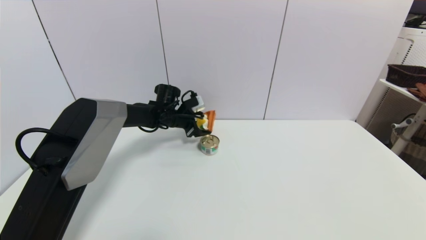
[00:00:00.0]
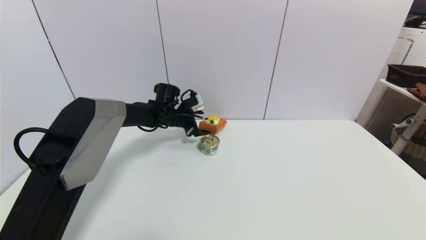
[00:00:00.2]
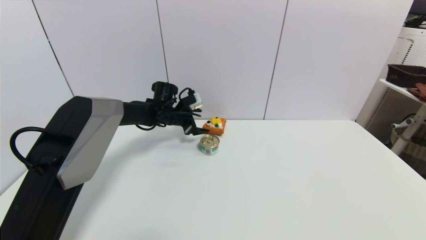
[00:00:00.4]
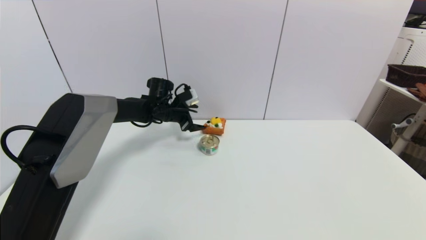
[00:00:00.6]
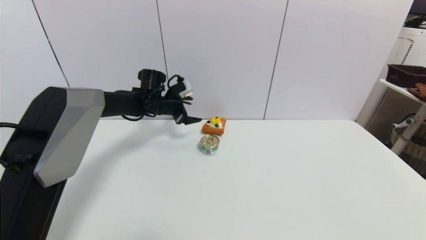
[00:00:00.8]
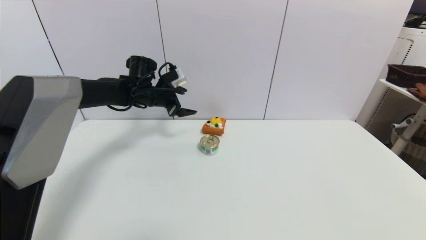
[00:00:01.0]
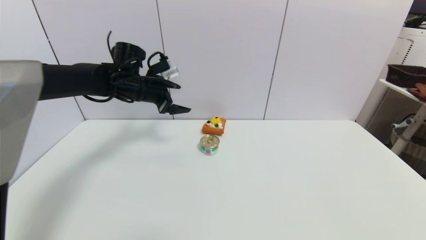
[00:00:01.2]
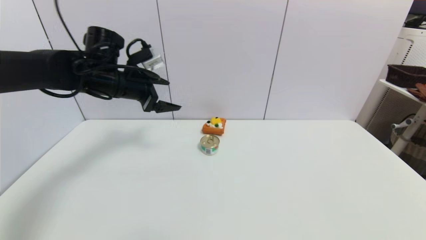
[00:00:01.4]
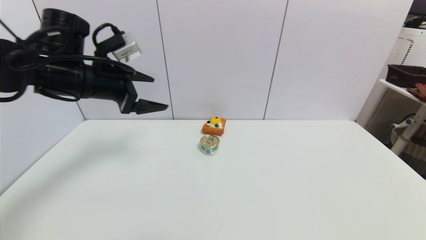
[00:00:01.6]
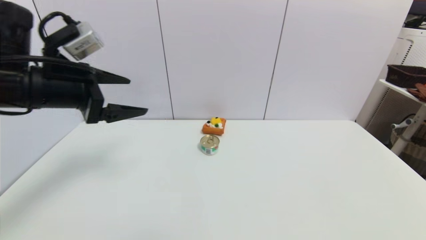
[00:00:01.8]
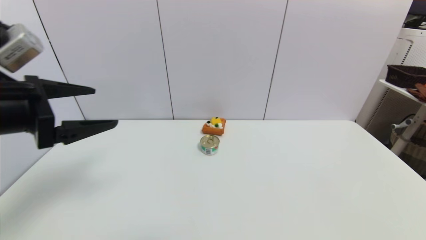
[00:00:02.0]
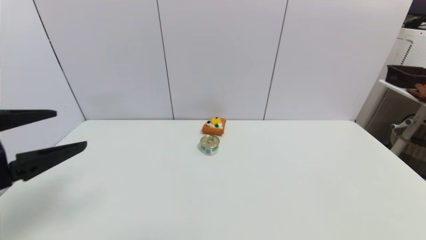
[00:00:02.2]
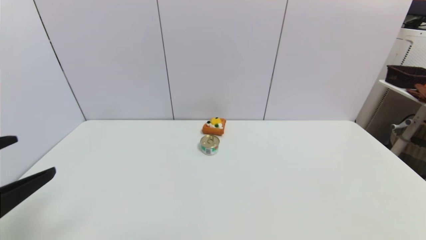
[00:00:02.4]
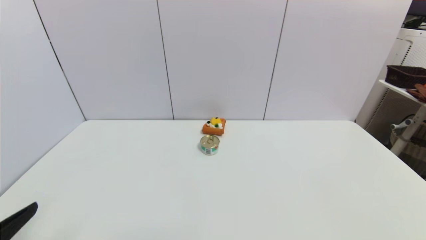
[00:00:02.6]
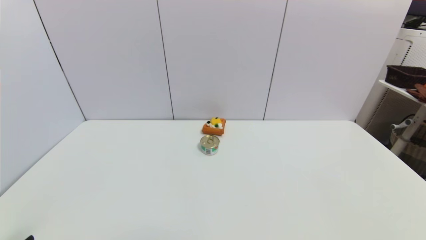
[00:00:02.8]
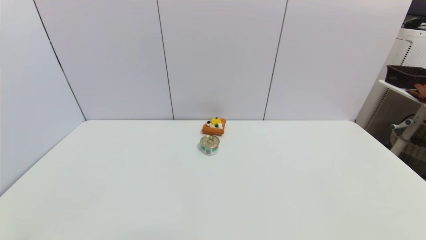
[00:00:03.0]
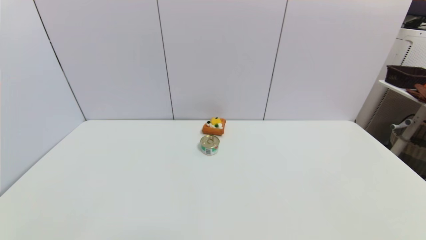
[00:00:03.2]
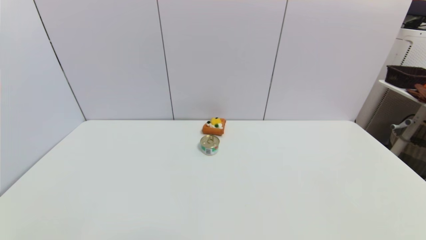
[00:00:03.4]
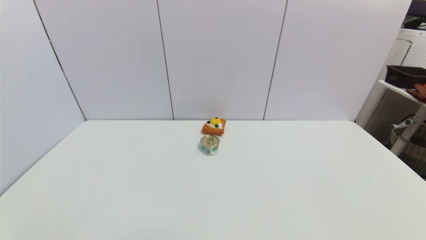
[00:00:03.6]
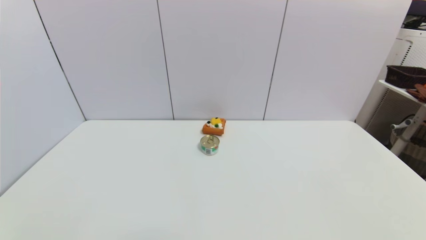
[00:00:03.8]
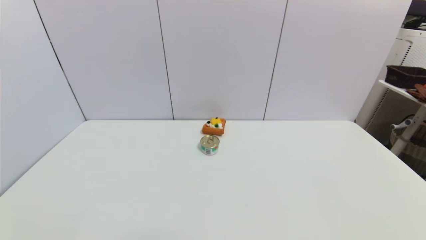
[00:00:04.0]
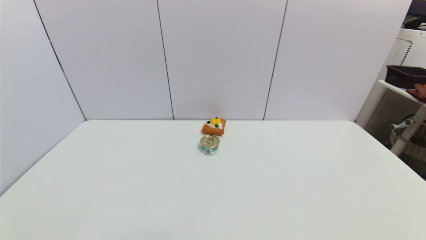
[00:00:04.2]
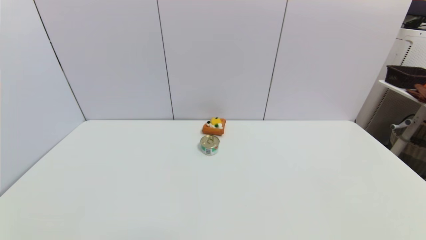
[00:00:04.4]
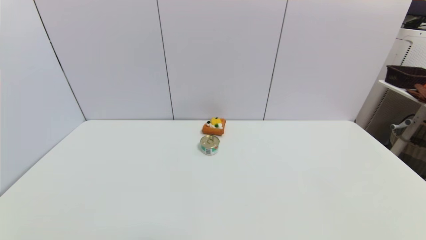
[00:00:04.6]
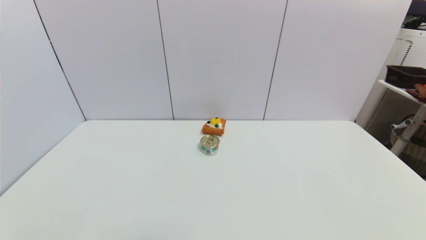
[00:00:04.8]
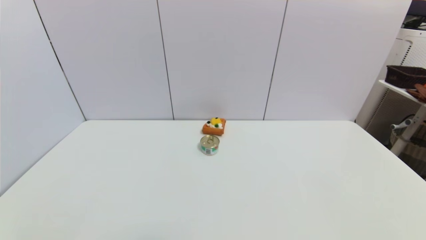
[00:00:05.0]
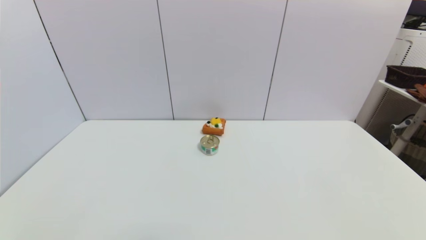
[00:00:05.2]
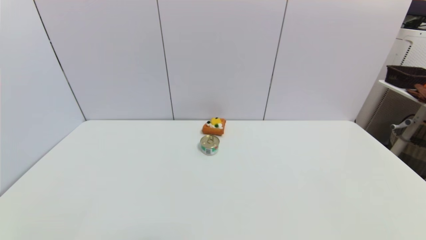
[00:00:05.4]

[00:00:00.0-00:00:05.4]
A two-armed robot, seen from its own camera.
00:00:00.0 to 00:00:01.4: The left gripper travels upward, backward and to the left by some 20 cm.
00:00:01.4 to 00:00:02.8: The left gripper travels backward by approximately 35 cm.
00:00:04.0 to 00:00:05.4: The two grippers keep their place.

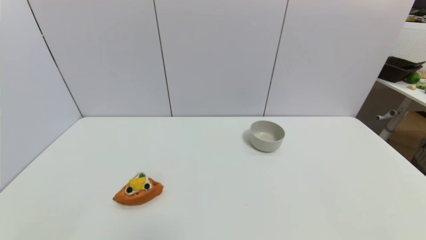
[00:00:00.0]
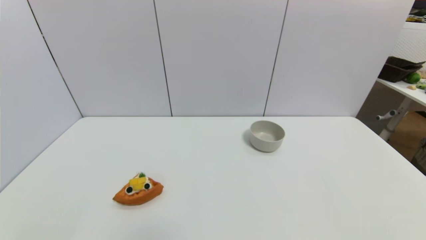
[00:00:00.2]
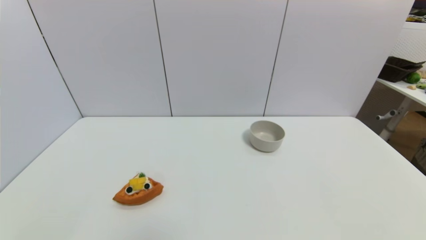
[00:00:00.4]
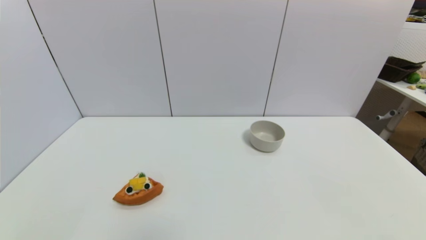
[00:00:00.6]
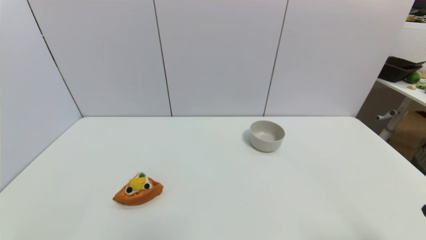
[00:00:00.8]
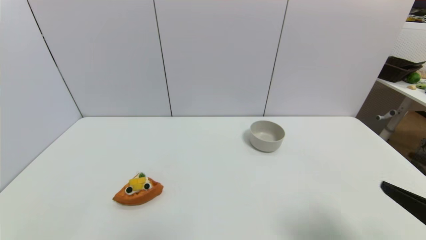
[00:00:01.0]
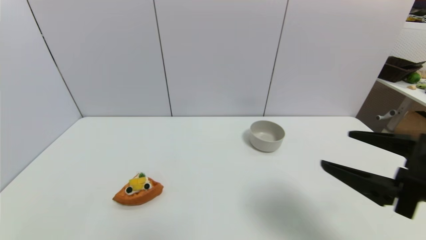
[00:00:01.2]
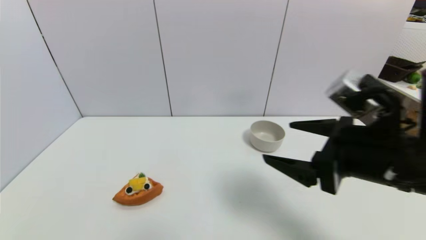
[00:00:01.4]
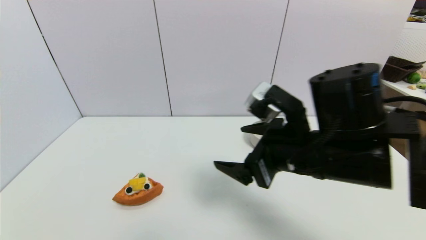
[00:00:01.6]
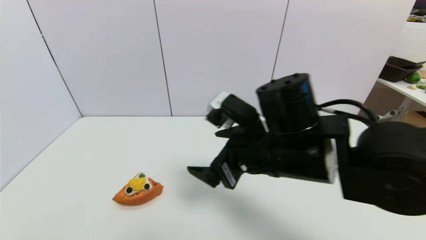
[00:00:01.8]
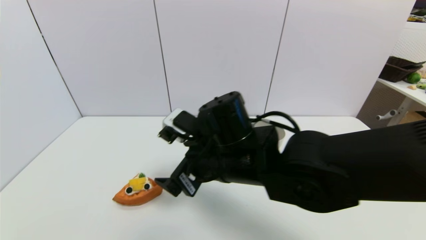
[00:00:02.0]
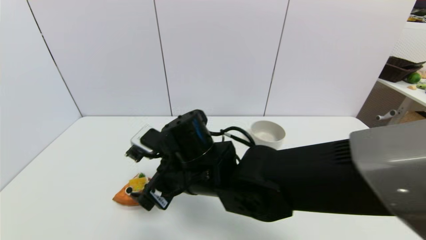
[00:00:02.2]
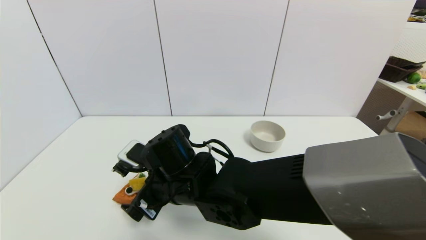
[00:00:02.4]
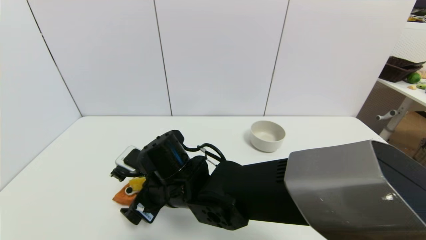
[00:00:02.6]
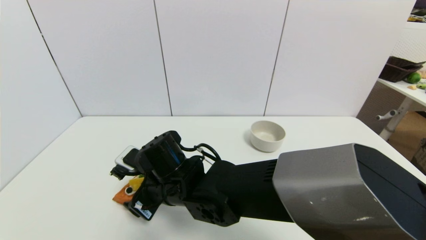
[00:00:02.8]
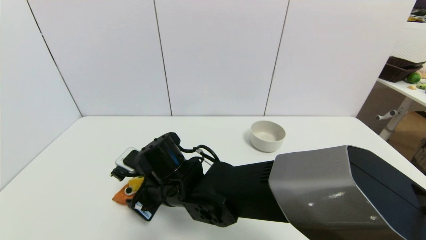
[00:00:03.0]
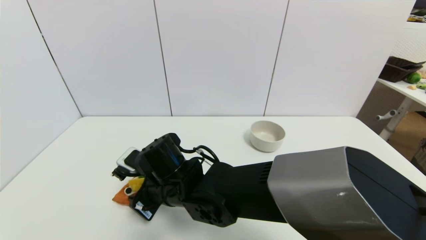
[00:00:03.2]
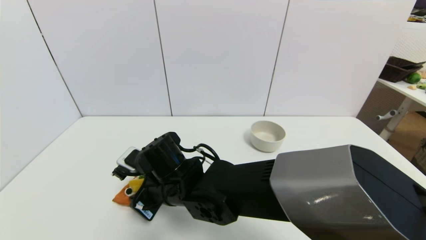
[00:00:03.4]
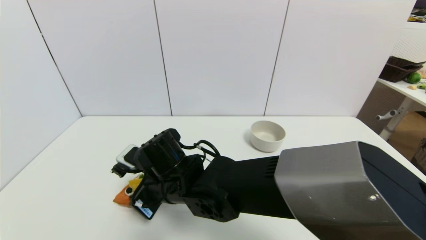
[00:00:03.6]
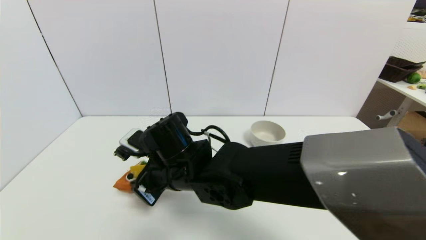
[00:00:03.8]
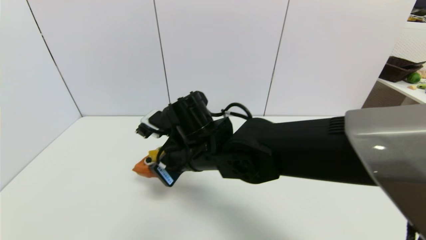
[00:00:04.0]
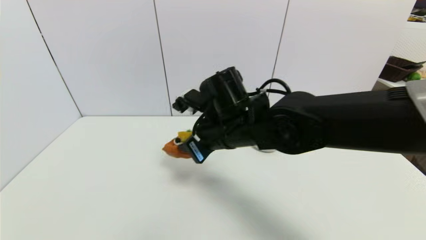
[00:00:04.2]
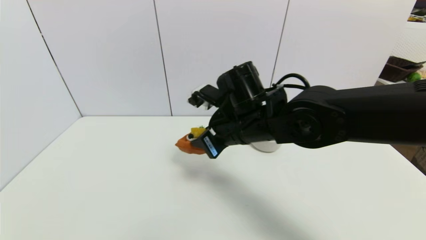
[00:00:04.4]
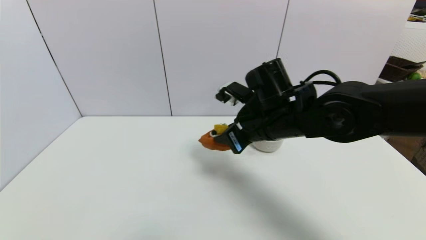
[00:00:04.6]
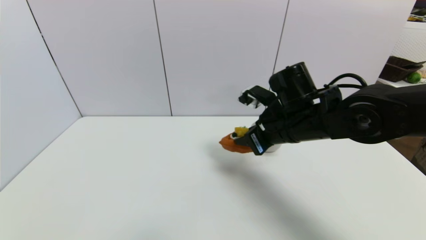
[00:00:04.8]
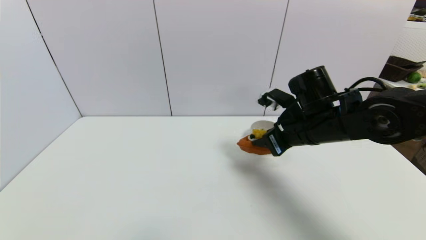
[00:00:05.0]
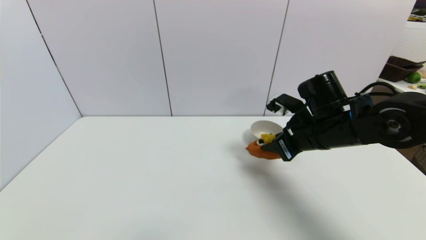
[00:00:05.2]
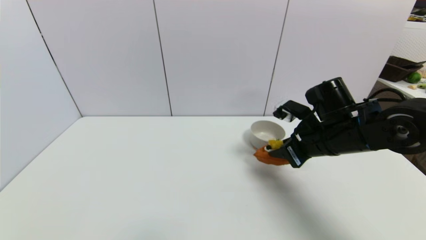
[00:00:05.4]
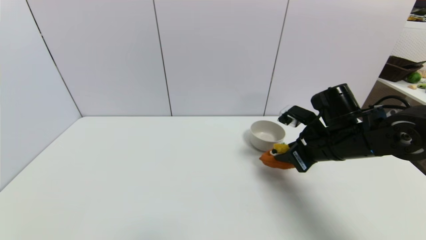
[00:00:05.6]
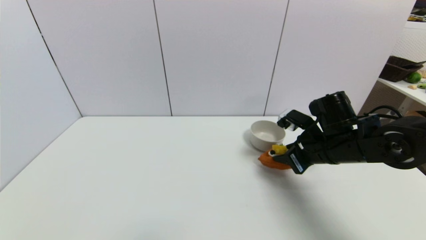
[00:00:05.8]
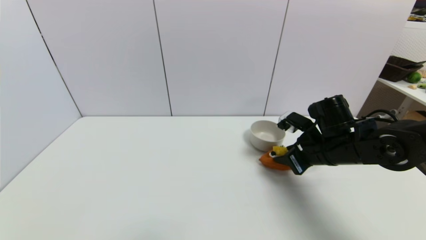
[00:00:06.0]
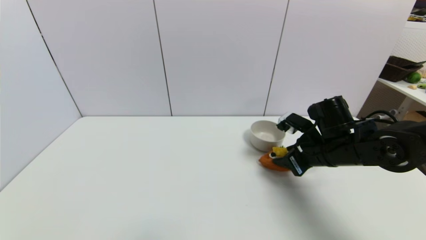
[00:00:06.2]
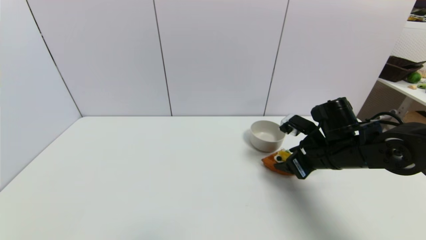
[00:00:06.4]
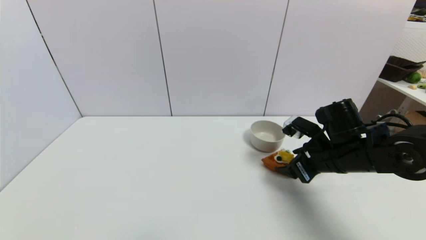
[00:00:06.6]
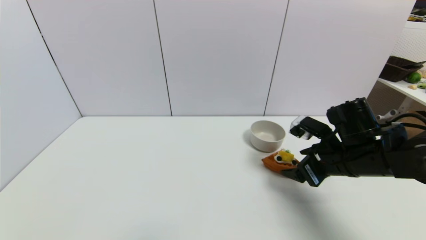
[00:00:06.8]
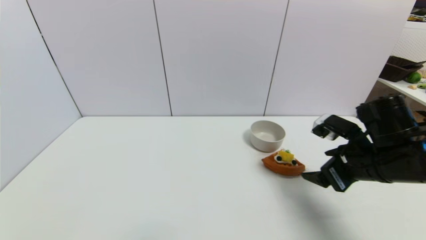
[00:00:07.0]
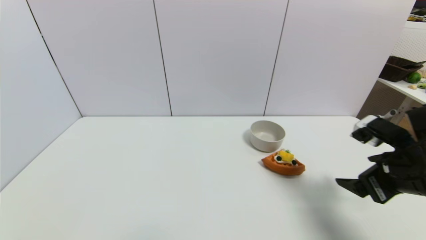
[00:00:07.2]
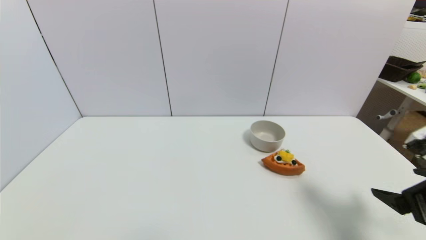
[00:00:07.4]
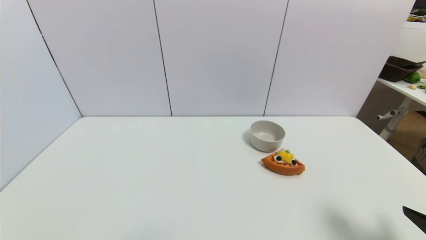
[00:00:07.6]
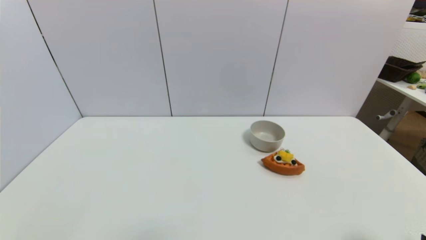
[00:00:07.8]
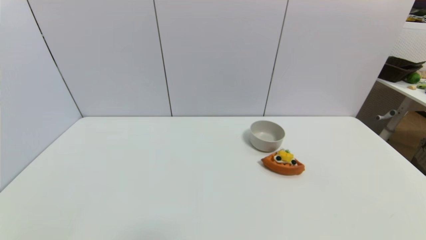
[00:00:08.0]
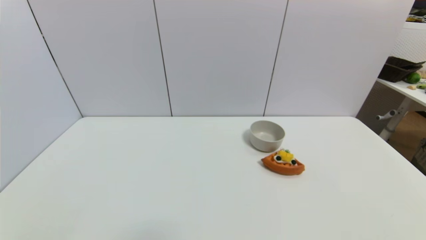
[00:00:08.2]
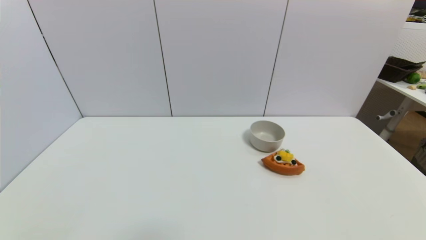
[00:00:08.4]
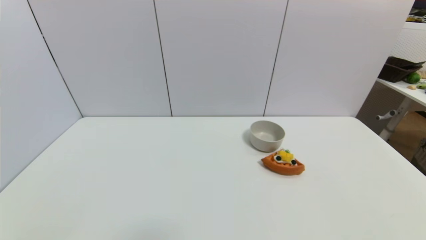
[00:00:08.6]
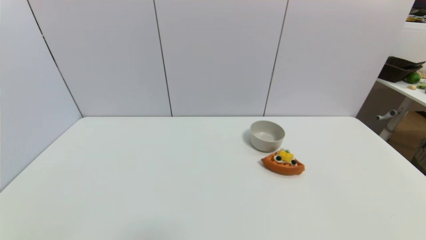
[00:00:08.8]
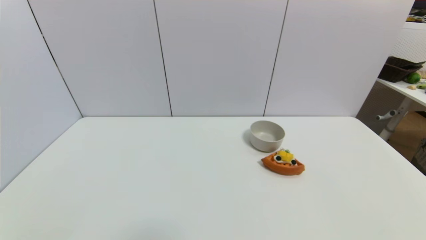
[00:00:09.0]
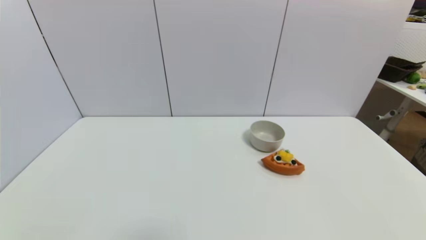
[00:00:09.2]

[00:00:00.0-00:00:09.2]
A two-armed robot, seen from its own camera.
Step, 00:00:00.0 to 00:00:03.4: Grasp the pizza with right gripper.
Step, 00:00:03.6 to 00:00:06.4: Place the pizza on the table with right gripper.
00:00:00.0 to 00:00:01.6: The right gripper is displaced forward, to the left and upward by approximately 35 cm.
00:00:01.6 to 00:00:03.0: The right gripper is displaced to the left and downward by some 25 cm, and closes.
00:00:03.0 to 00:00:04.6: The right gripper is displaced to the right and upward by some 20 cm.
00:00:04.6 to 00:00:06.2: The right gripper goes about 15 cm to the right and downward.
00:00:06.2 to 00:00:07.6: The right gripper is displaced backward and to the right by approximately 25 cm, and opens.
00:00:07.6 to 00:00:09.2: The right gripper moves downward and backward, roughly 15 cm.
